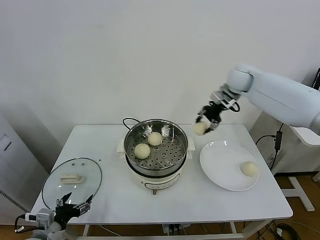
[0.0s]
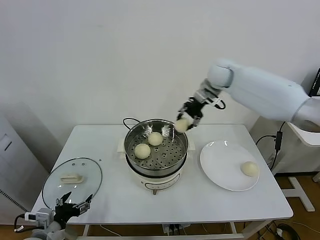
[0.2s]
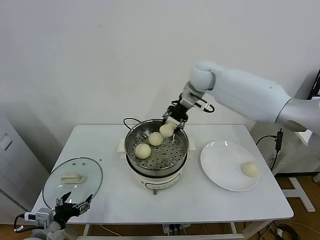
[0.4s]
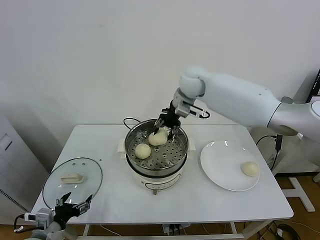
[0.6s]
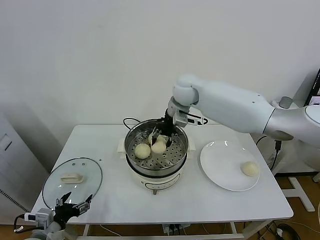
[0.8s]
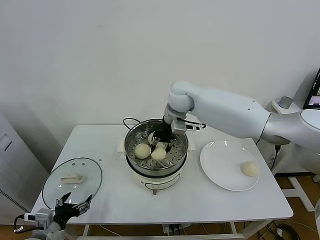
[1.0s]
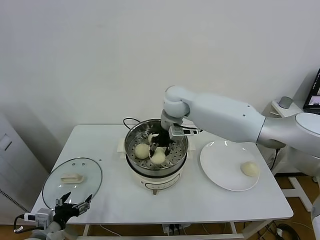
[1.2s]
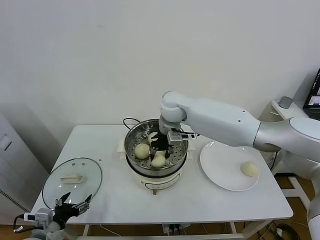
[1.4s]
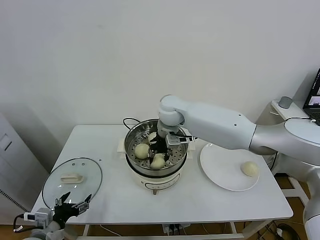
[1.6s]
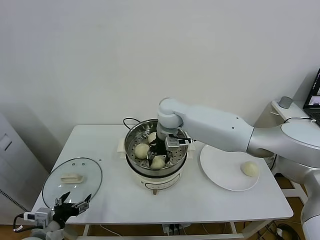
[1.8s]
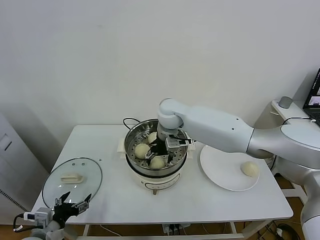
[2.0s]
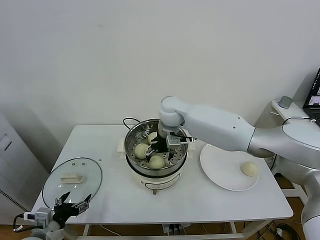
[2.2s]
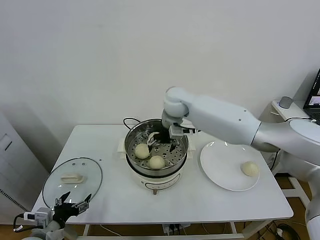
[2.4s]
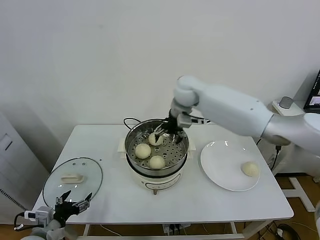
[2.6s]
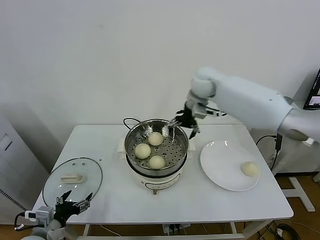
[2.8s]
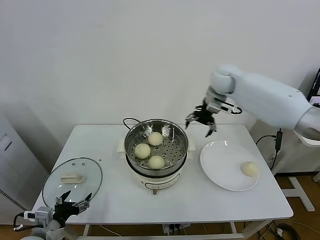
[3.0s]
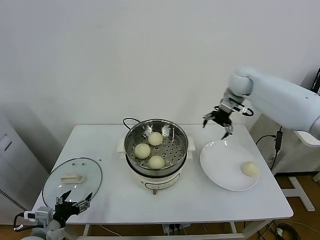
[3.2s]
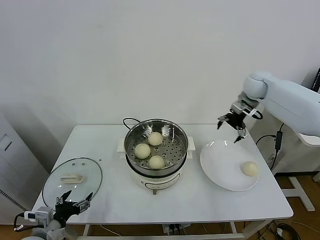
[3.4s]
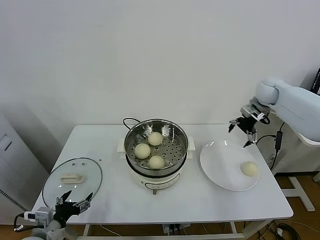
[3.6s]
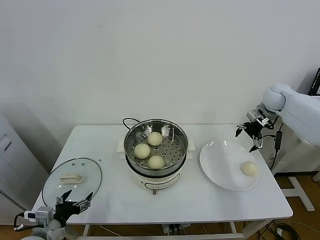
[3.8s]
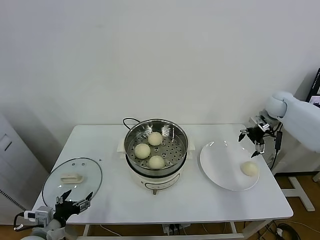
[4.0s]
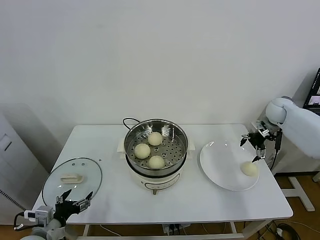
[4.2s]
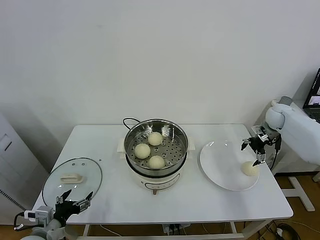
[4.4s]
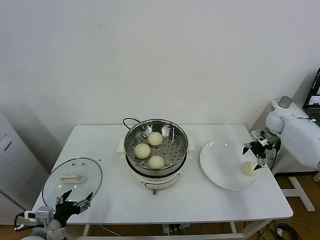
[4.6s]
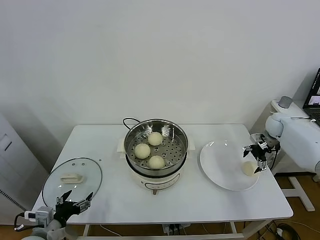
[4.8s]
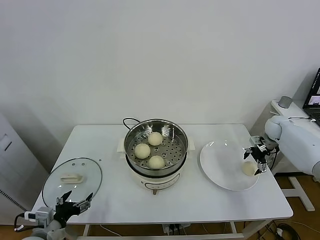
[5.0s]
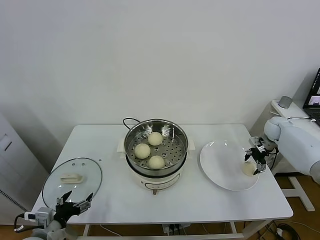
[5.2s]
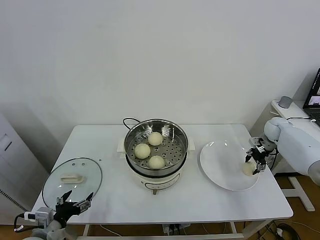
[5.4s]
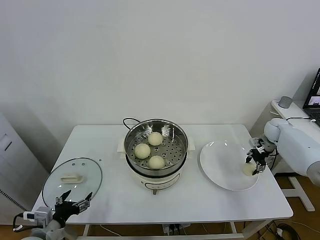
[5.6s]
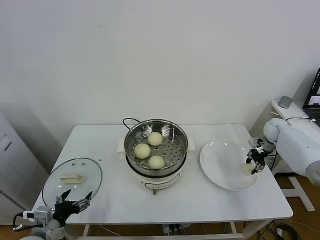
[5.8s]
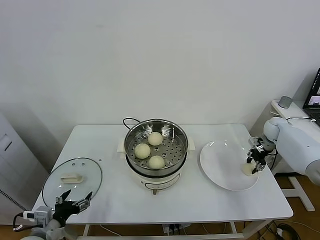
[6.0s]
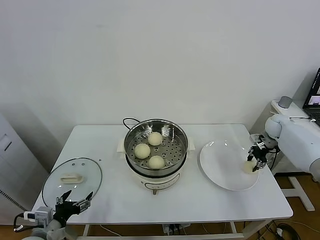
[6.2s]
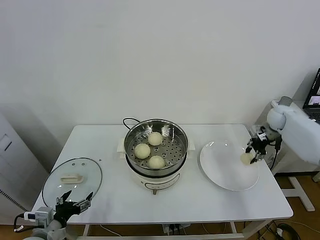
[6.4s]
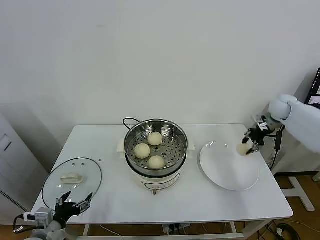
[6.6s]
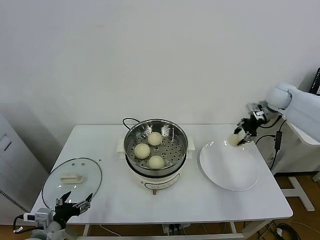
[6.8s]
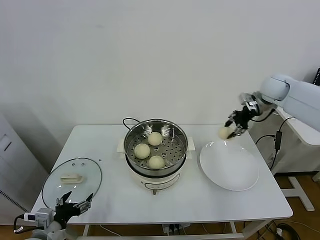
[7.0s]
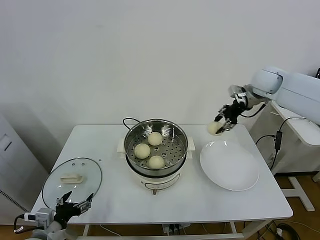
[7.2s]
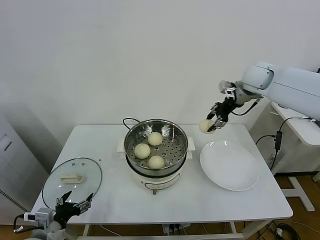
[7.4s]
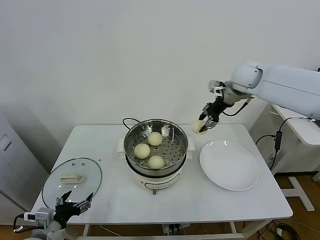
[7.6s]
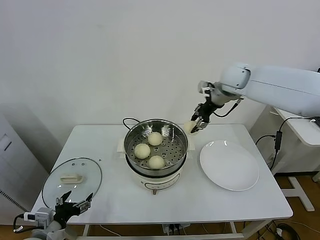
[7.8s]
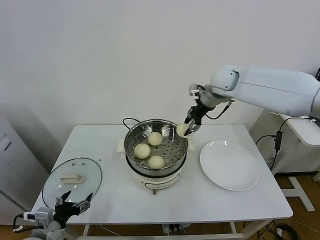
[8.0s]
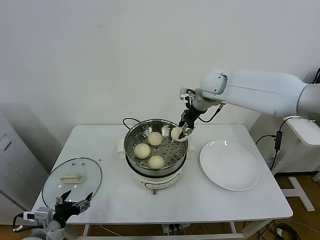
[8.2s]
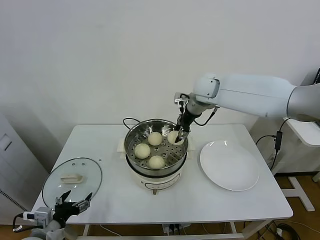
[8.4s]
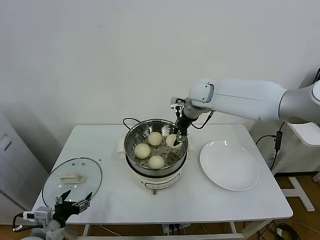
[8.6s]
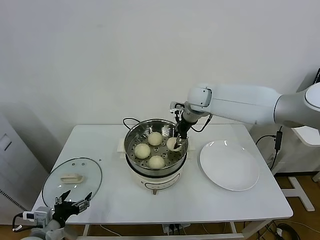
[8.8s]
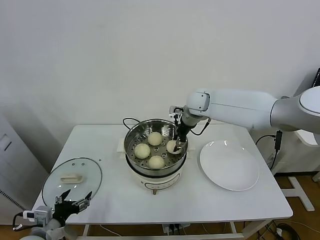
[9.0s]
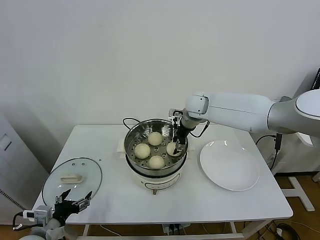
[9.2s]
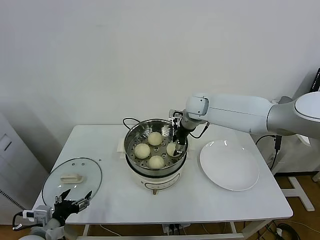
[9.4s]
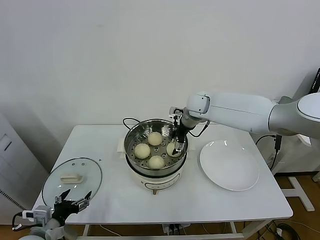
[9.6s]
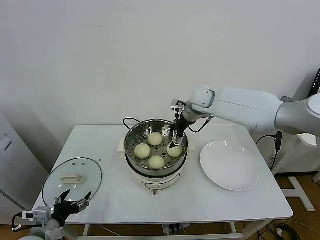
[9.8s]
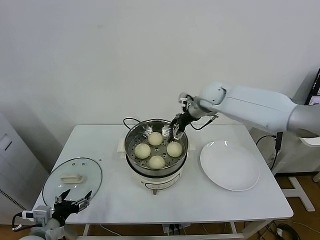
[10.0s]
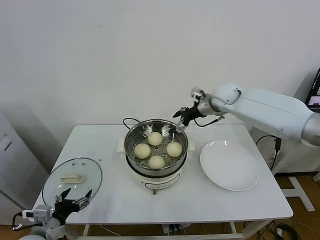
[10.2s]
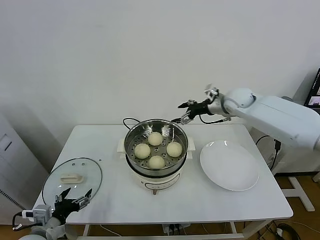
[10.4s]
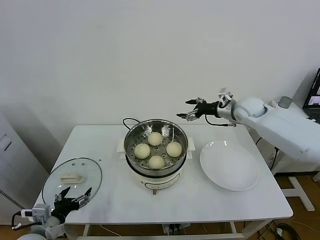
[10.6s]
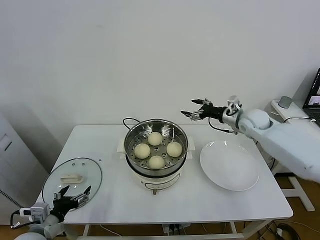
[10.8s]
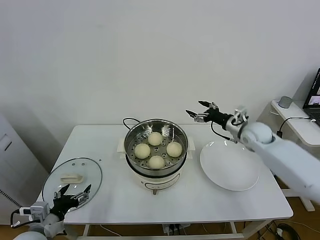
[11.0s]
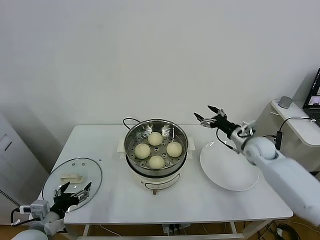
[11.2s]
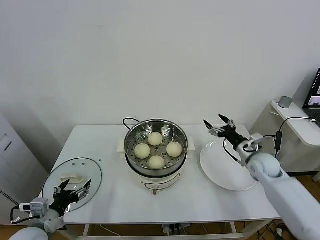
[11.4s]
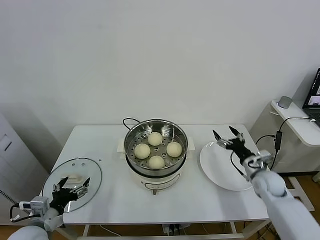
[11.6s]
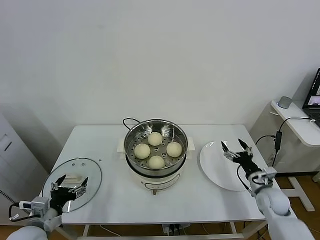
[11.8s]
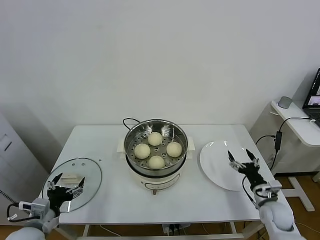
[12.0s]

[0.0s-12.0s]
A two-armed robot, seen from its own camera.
Task of the whole recording: take steamed baozi put them in steamer.
Step, 0.0s to 2.2s: Place the baozi on the steamer with right gripper.
Step, 2.4s to 6.0s: Grasp the baozi in the plate with right gripper.
Step, 6.2s to 9.6s: Place the baozi on the steamer with right gripper.
0.0s to 1.6s: The right gripper moves to the left and downward, roughly 25 cm.
1.6s to 3.0s: The right gripper moves to the right and upward, roughly 20 cm, and opens its fingers.
3.0s to 4.4s: The right gripper heads to the right and downward, covering approximately 30 cm.
4.4s to 6.0s: The right gripper moves downward, some 5 cm, and closes up.
6.0s to 7.6s: The right gripper travels upward and to the left by some 30 cm.
7.6s to 9.0s: The right gripper heads to the left and downward, covering roughly 15 cm.
9.0s to 10.4s: The right gripper travels to the right by roughly 15 cm, and opens its fingers.
10.4s to 12.0s: The right gripper shifts about 40 cm downward, backward and to the right.

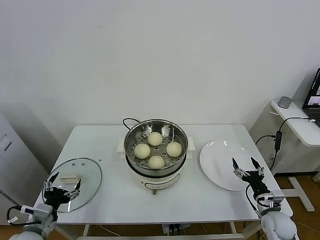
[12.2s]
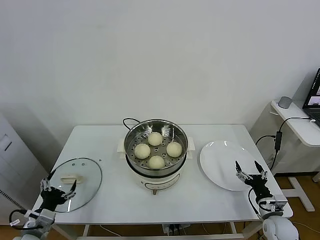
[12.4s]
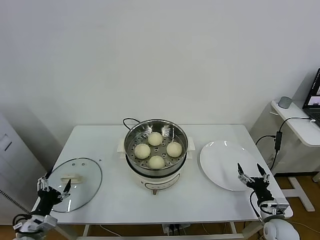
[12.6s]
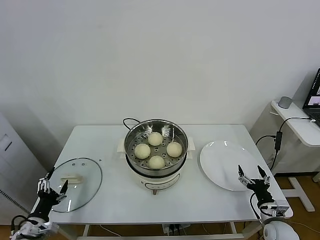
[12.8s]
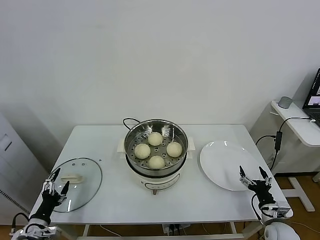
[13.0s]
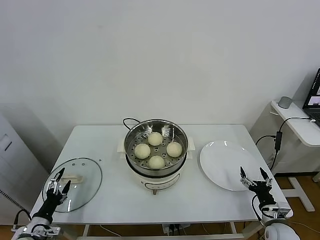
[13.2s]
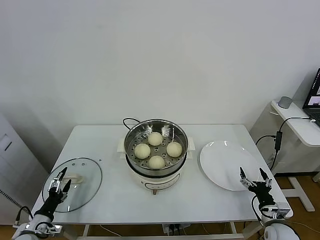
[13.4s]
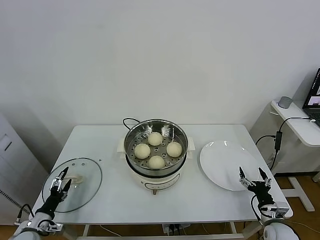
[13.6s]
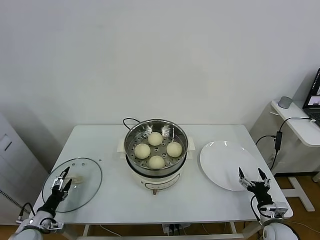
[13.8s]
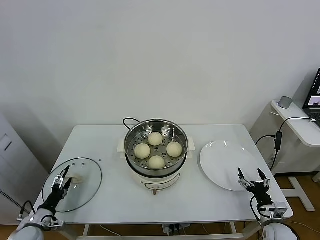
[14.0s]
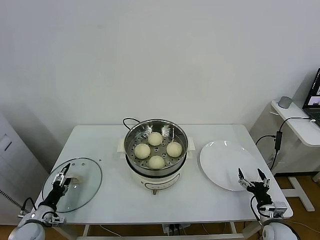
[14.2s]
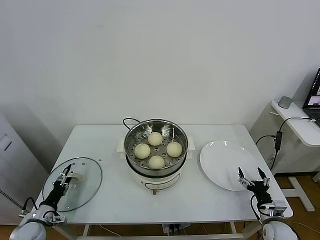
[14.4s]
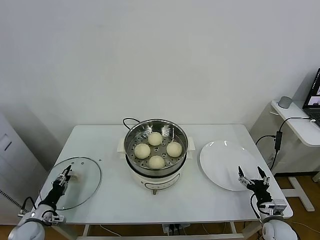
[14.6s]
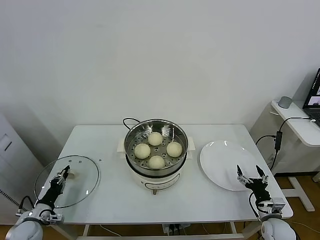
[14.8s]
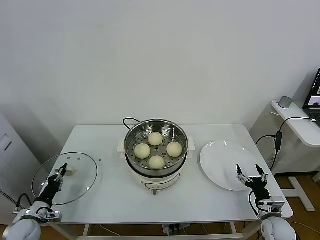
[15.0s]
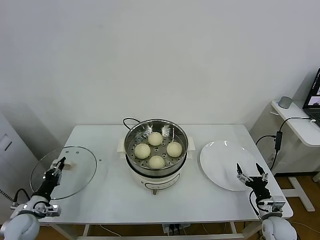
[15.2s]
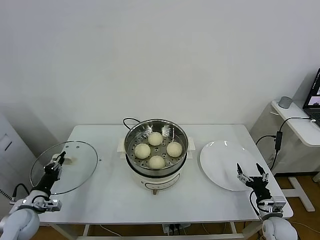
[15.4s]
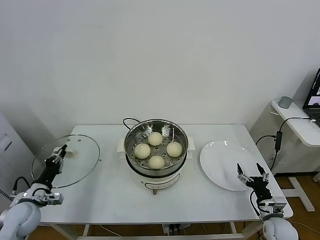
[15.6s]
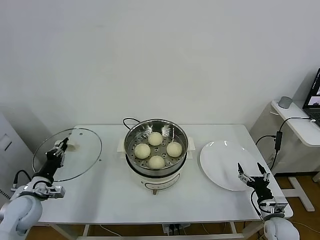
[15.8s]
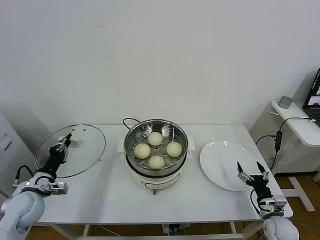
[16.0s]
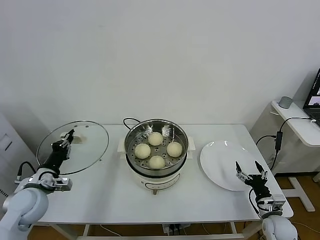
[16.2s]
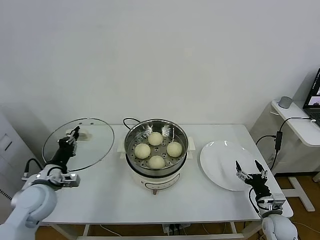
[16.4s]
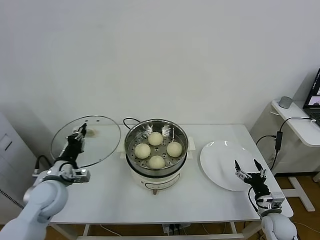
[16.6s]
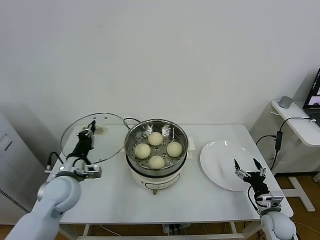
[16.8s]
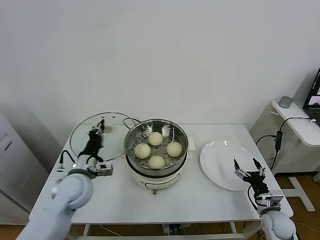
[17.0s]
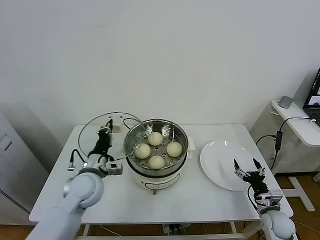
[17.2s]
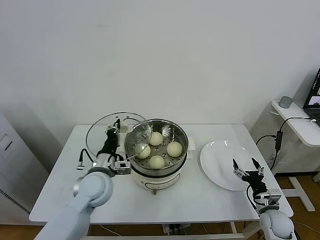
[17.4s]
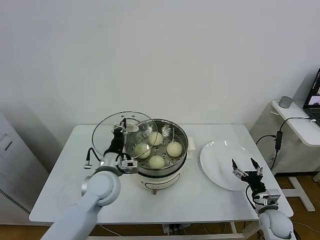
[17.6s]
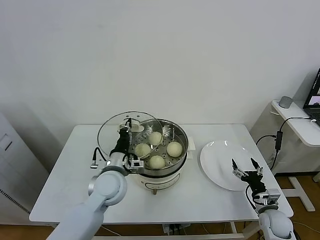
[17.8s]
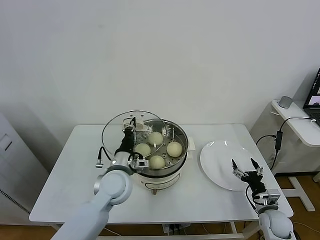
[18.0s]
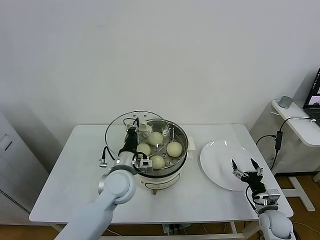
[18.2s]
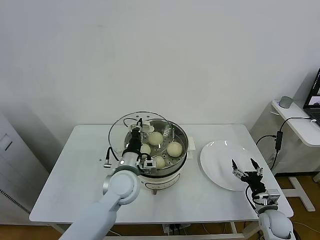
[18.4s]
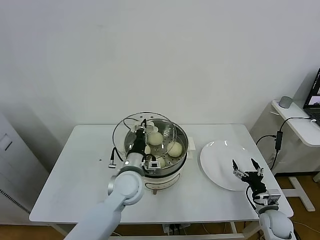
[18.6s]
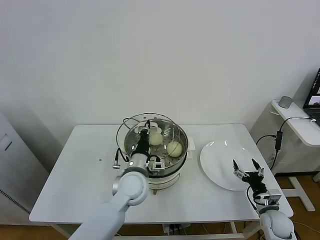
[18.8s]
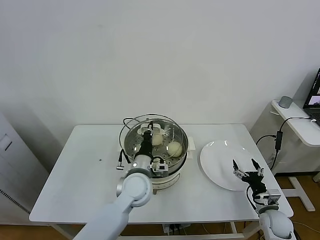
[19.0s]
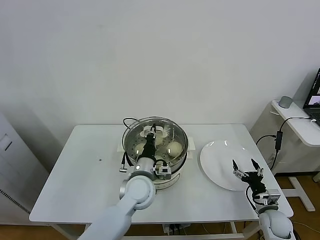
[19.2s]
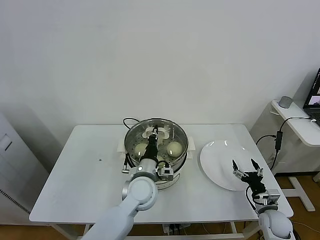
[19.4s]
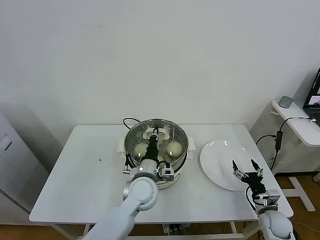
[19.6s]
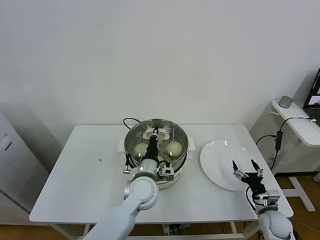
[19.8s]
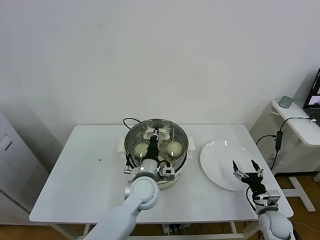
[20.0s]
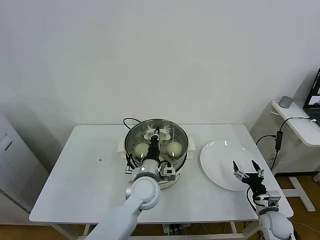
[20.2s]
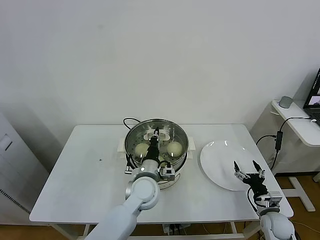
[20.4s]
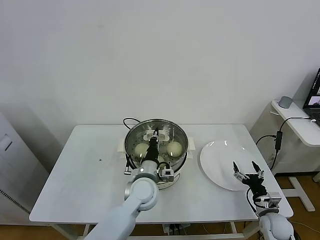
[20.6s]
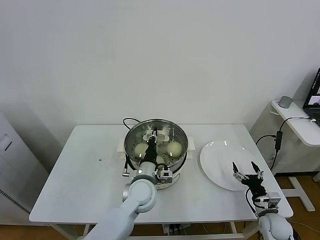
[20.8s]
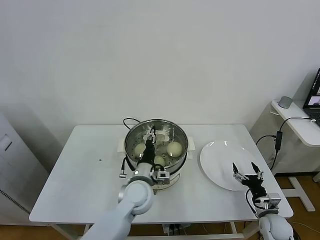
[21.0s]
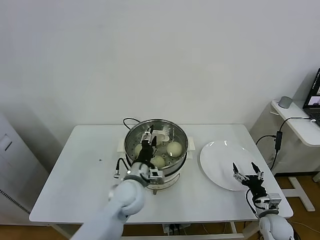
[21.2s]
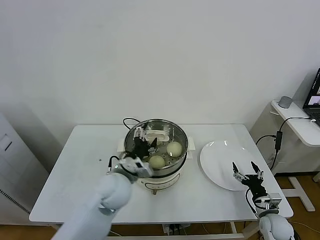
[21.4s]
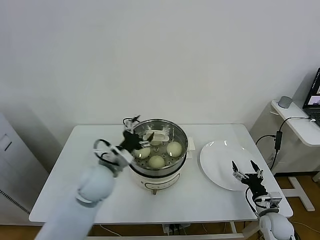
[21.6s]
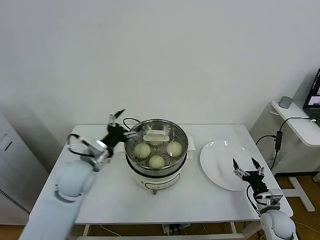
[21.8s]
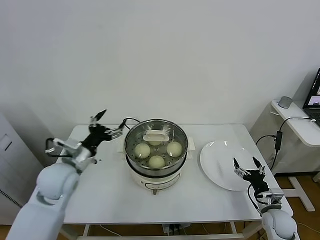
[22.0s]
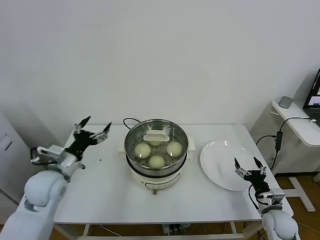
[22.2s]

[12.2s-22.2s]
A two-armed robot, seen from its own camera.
Task of the whole recording: take steamed baozi put them in steamer.
Step, 12.2s to 15.0s: Grasp the pot lid with left gripper.
Step, 15.2s to 21.0s: Place the pot lid on the steamer with left gripper.
12.2s to 13.6s: The left gripper goes some 15 cm downward and to the left.
13.6s to 15.0s: The left gripper closes.
15.0s to 16.4s: The left gripper moves upward and to the right, some 20 cm.
16.4s to 18.0s: The left gripper is displaced to the right by about 20 cm.
18.0s to 19.4s: The left gripper moves to the right, approximately 10 cm.
19.4s to 20.8s: There are only small adjustments of the grippers.
20.8s to 22.2s: The left gripper travels to the left by roughly 25 cm, and opens up.
